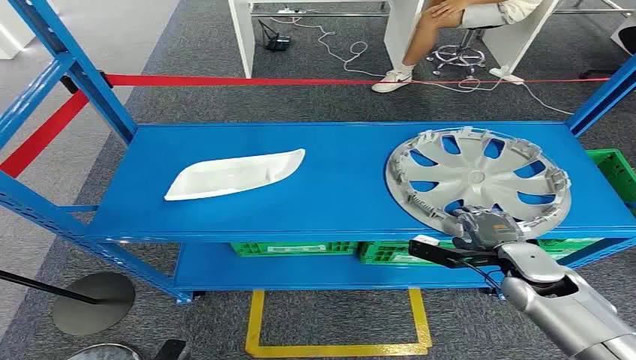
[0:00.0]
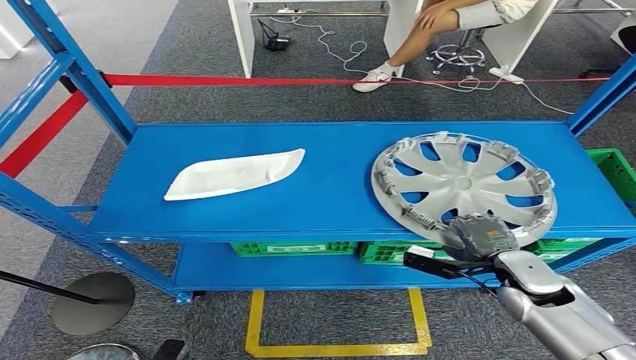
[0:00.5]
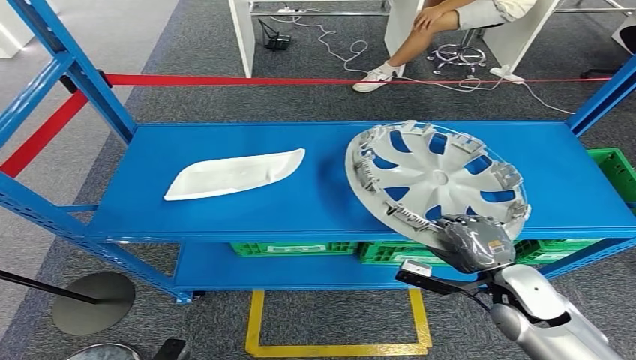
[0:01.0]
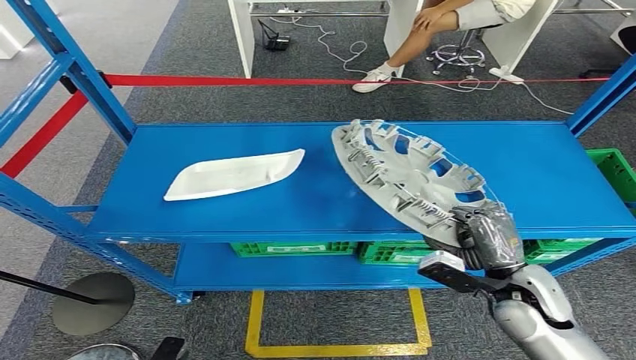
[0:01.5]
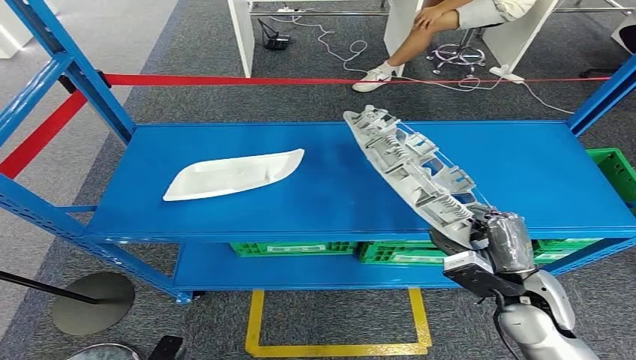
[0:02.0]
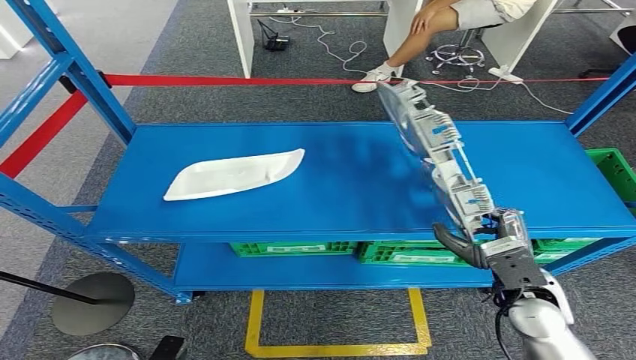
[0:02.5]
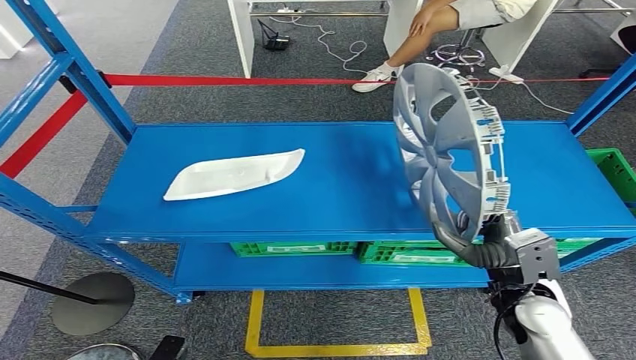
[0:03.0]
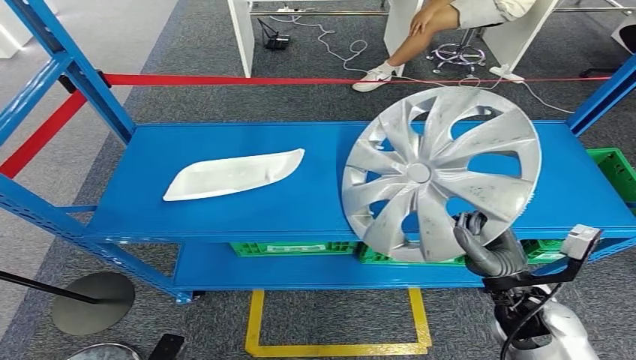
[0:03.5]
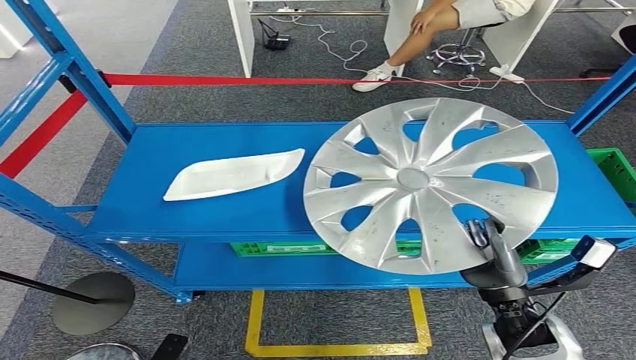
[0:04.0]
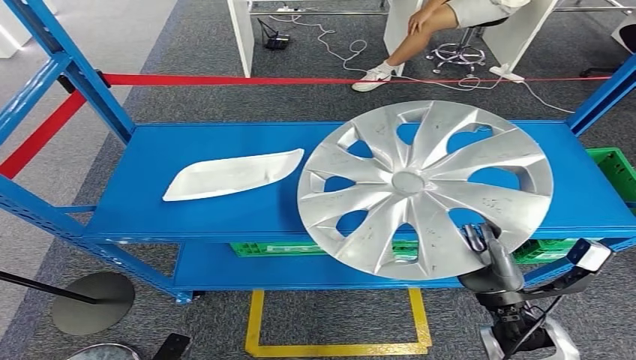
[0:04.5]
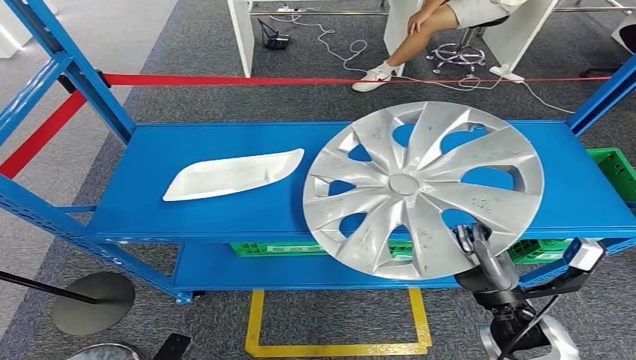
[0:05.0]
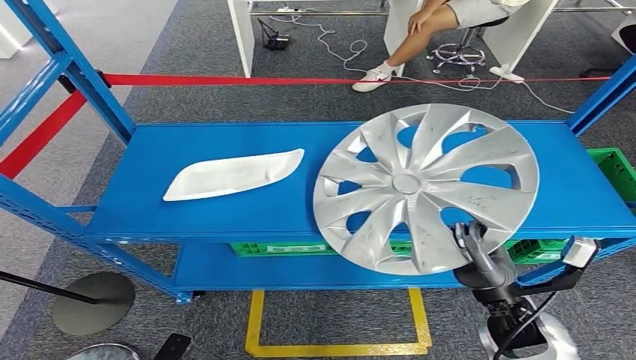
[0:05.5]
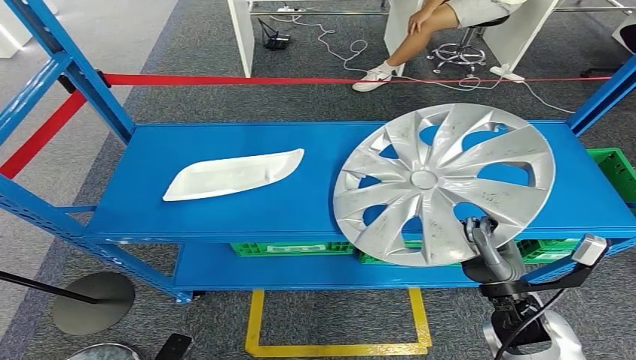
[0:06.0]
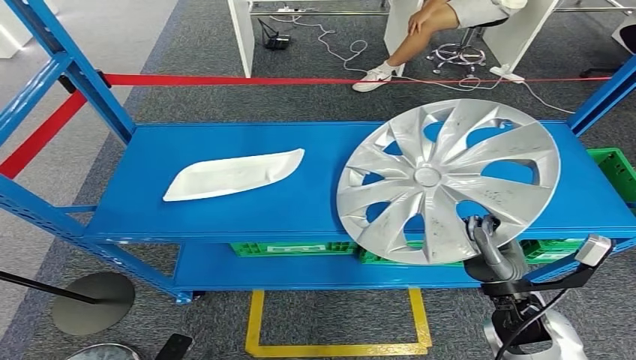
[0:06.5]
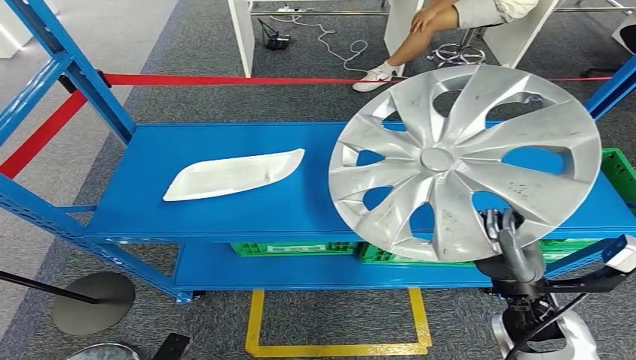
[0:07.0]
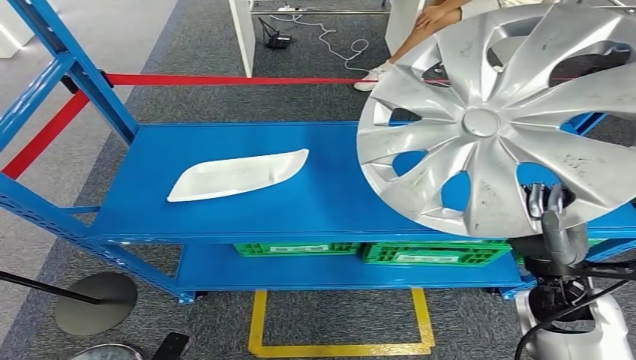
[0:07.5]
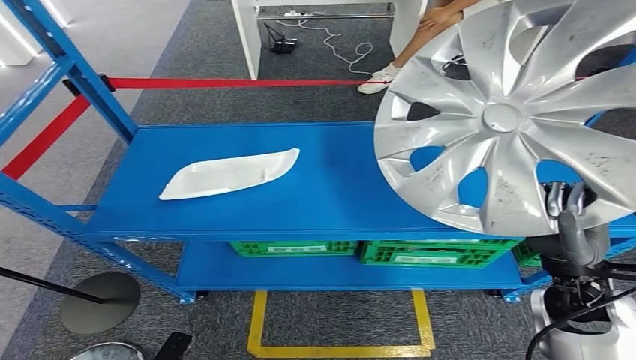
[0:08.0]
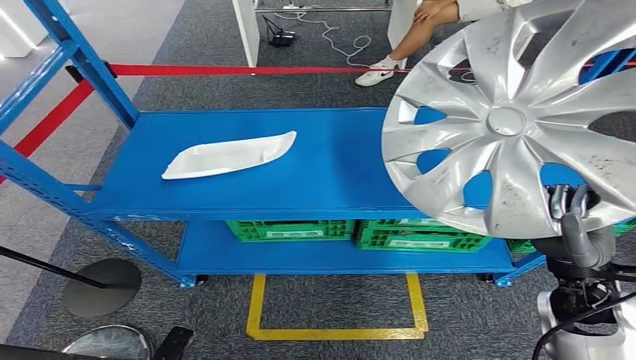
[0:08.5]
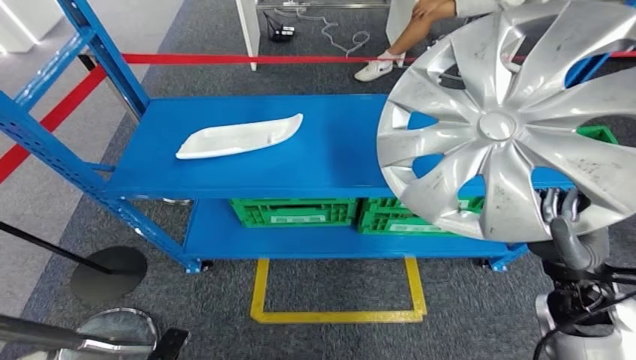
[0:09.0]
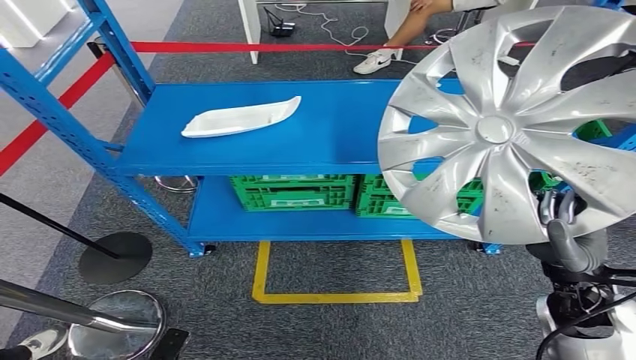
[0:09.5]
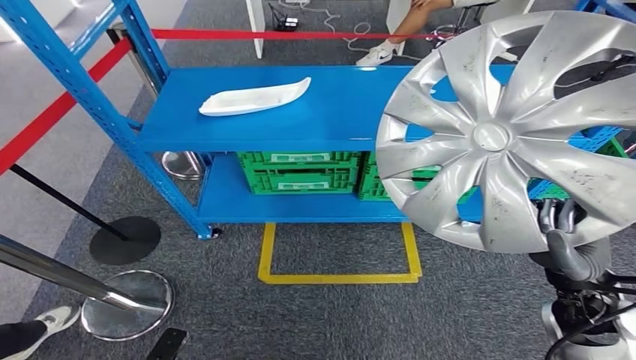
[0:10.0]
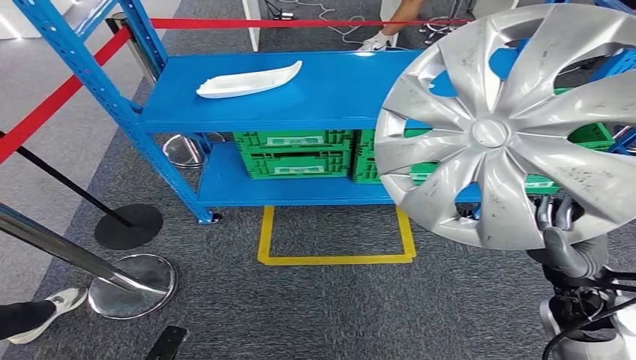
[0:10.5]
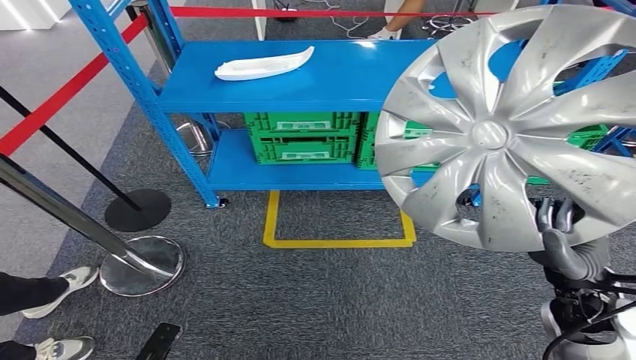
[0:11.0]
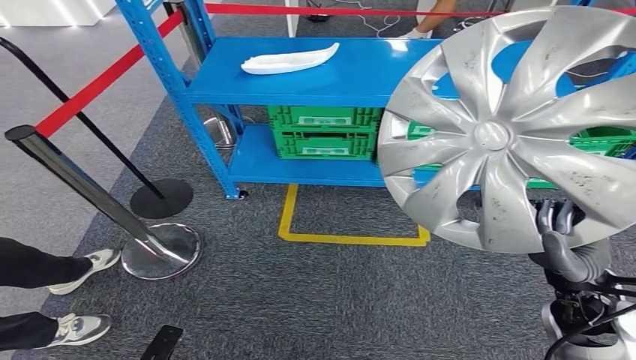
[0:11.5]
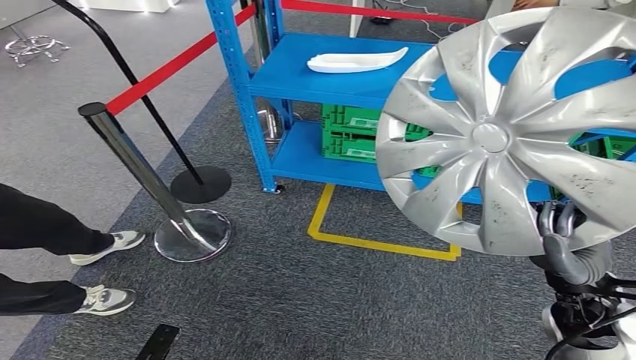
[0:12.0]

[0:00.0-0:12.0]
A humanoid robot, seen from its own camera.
Step, 0:00.0 to 0:05.5: Take small components from the rack.
0:04.0 to 0:06.0: The hands make only small movements.

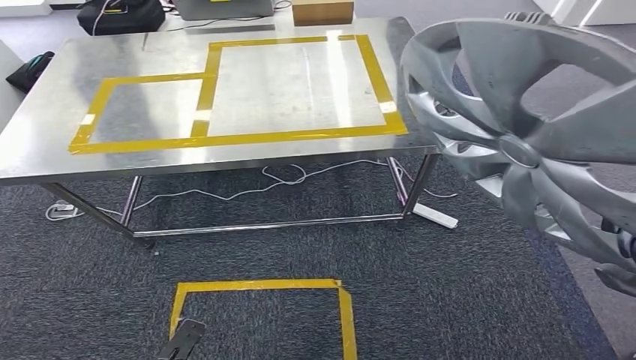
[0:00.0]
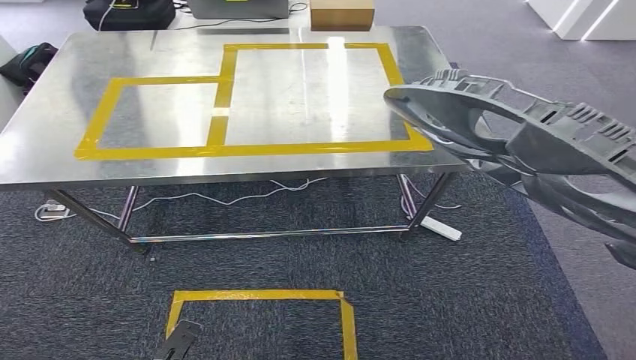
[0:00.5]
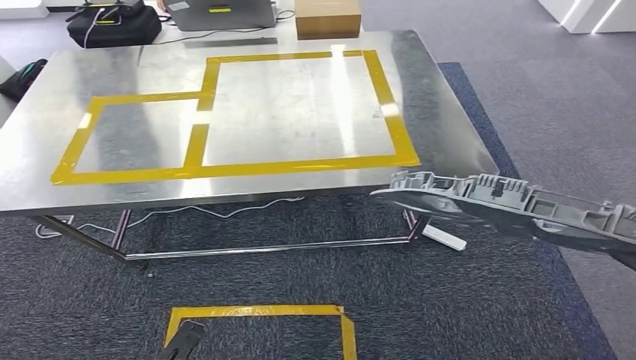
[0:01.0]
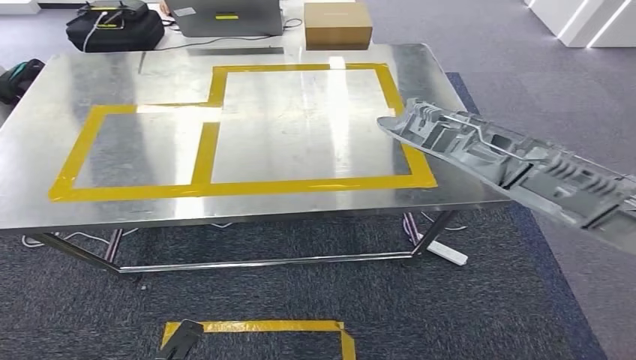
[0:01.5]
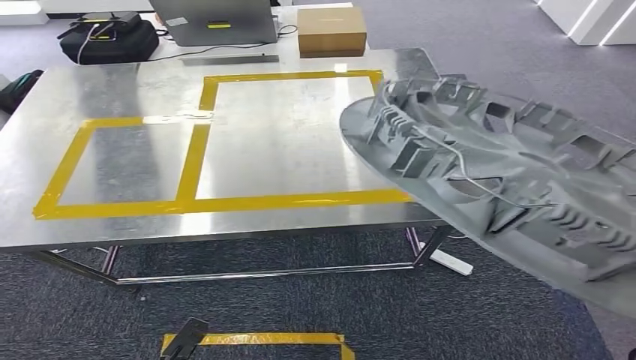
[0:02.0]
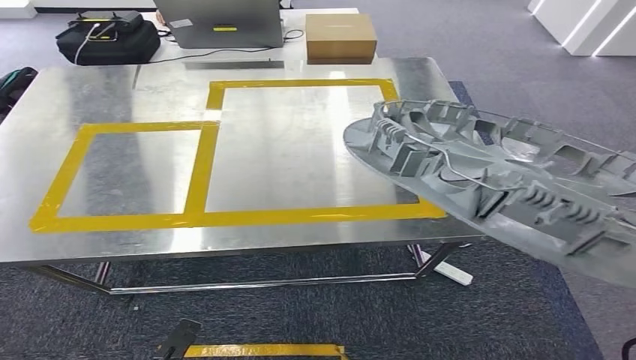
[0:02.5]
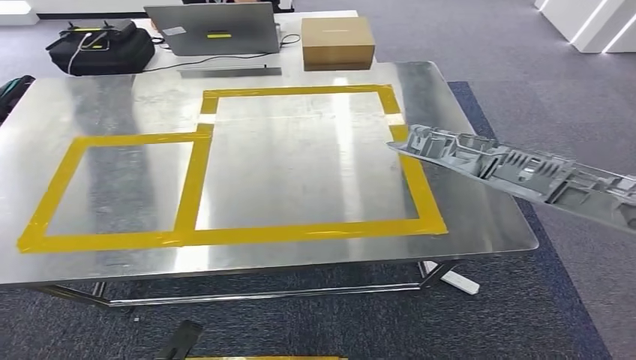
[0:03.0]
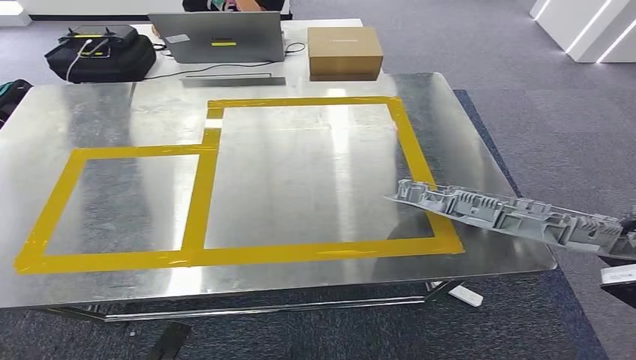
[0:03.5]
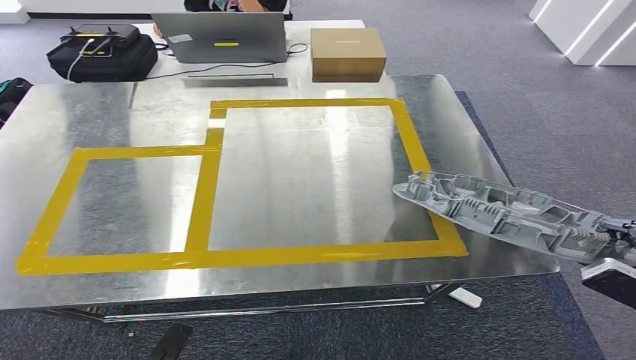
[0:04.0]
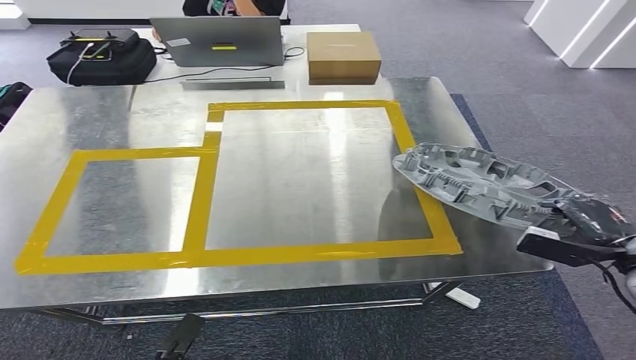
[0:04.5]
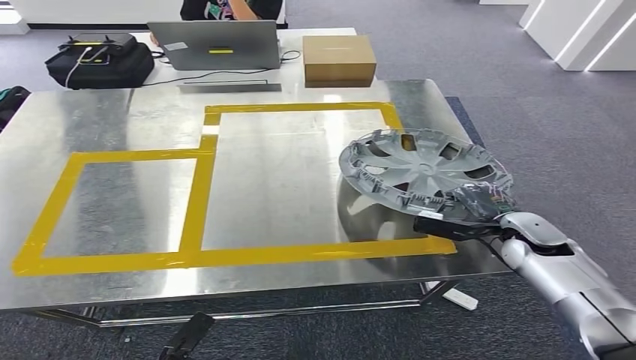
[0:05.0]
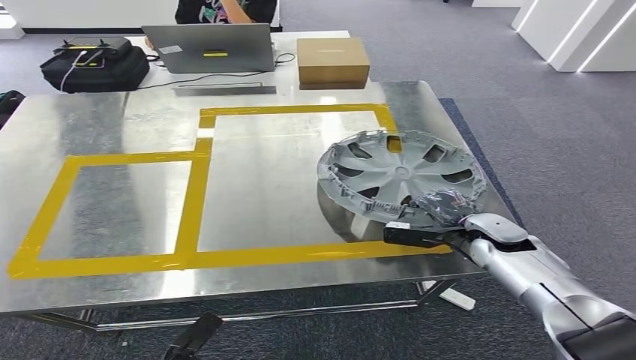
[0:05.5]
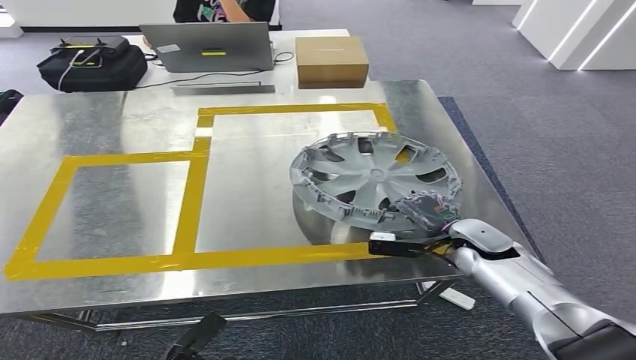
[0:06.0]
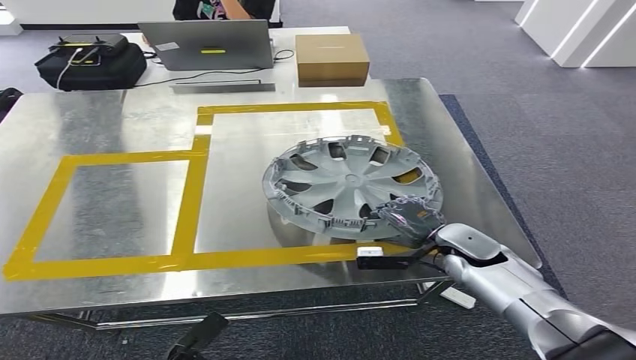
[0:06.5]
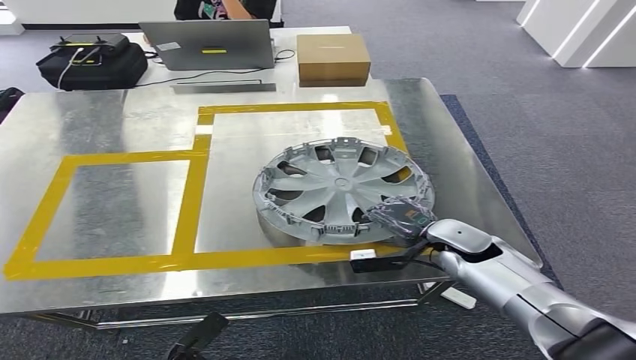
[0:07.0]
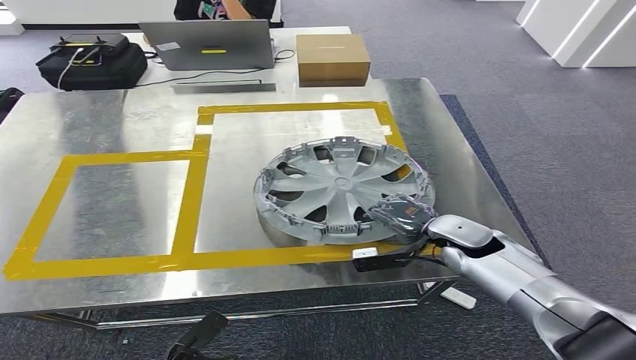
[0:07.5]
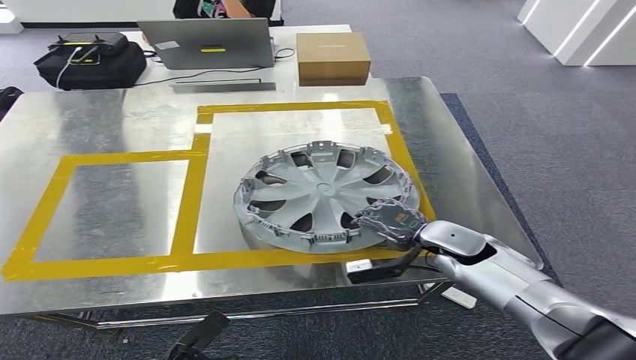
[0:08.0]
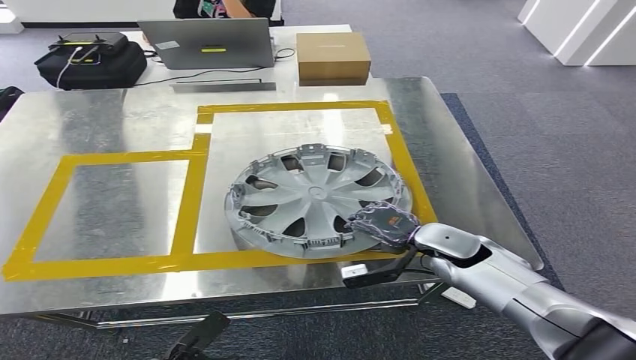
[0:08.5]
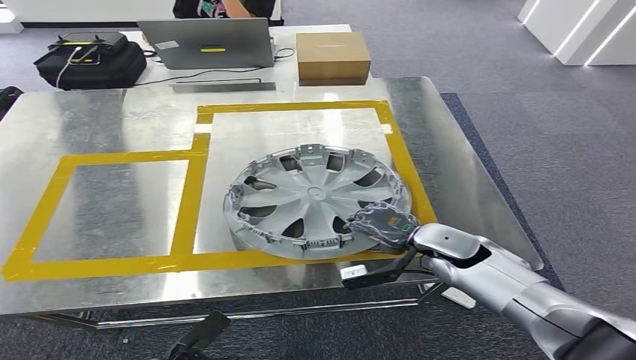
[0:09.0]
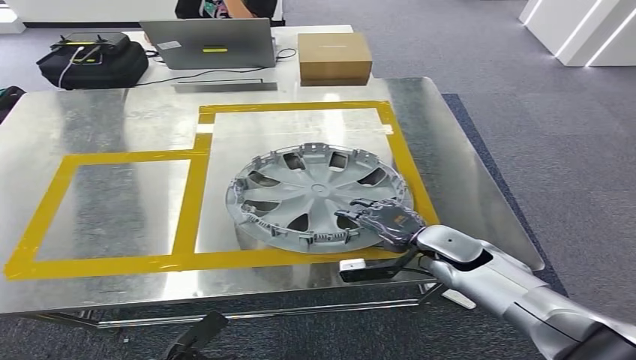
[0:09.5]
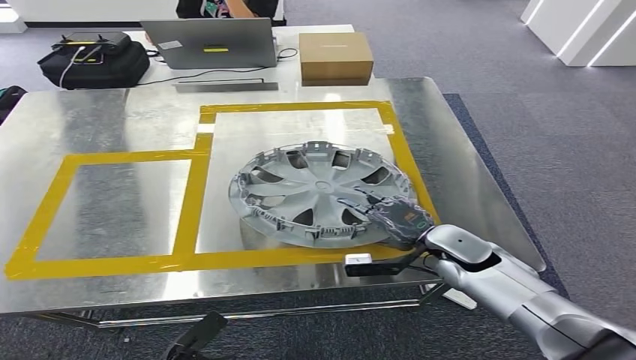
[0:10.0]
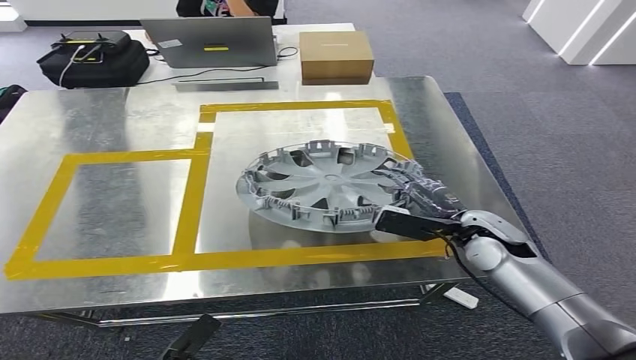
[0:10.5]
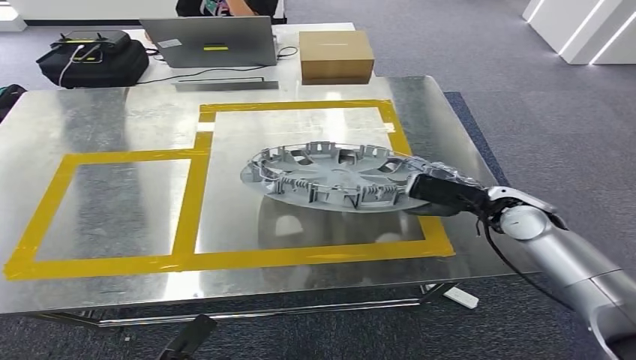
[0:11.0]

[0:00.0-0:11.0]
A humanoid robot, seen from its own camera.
Step, 0:00.0 to 0:03.0: Move the small parts to the workbench.
0:07.5 to 0:09.0: The hands make only small movements.
